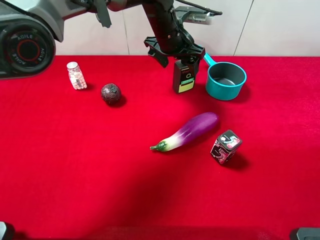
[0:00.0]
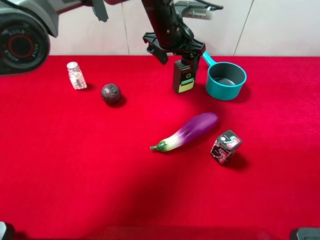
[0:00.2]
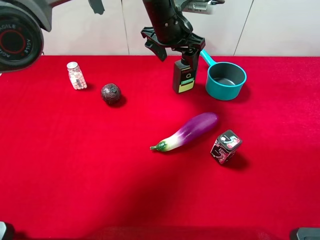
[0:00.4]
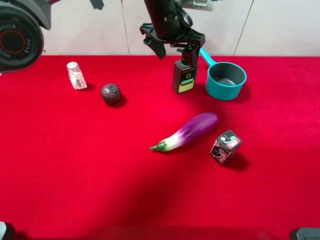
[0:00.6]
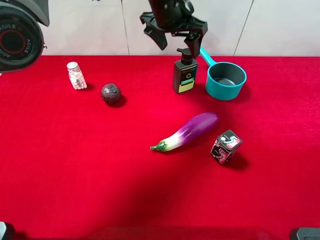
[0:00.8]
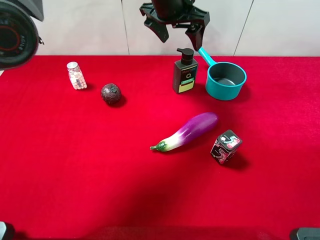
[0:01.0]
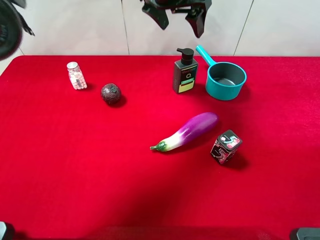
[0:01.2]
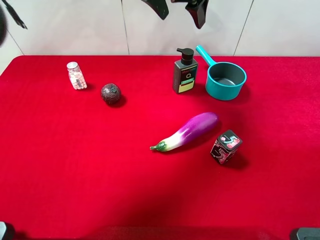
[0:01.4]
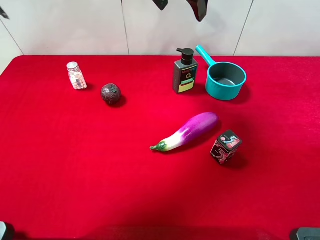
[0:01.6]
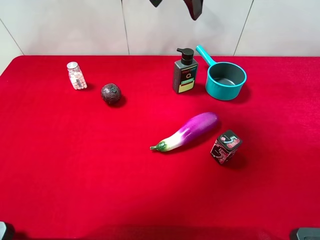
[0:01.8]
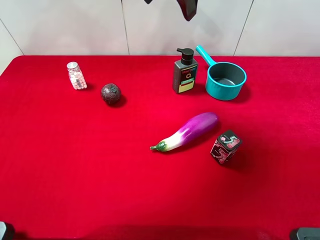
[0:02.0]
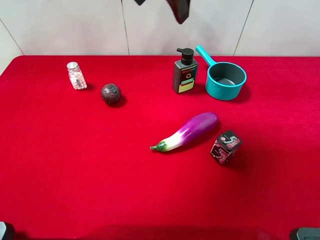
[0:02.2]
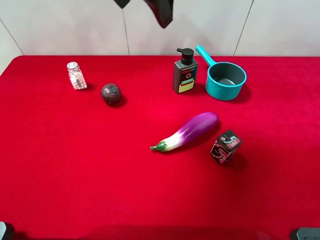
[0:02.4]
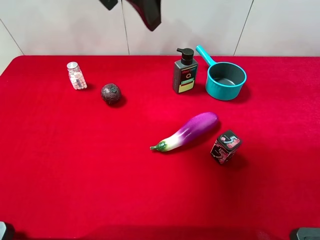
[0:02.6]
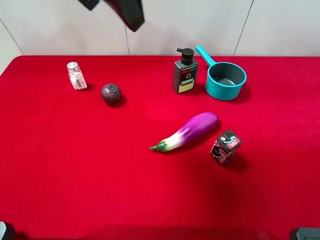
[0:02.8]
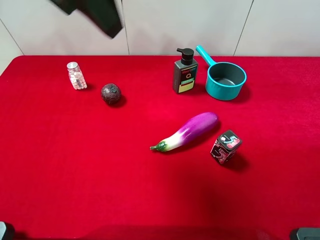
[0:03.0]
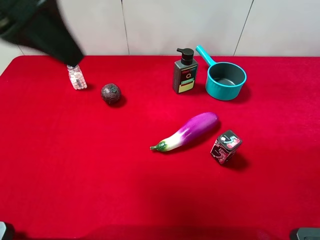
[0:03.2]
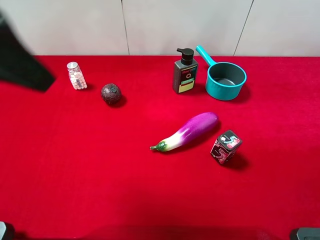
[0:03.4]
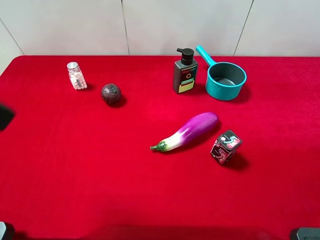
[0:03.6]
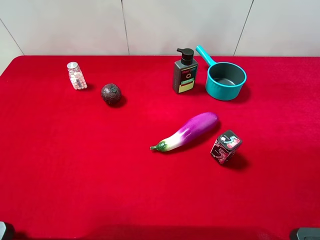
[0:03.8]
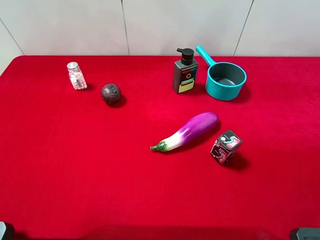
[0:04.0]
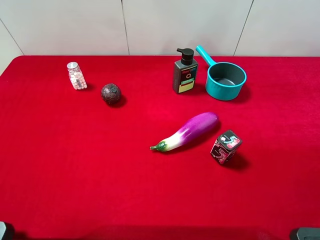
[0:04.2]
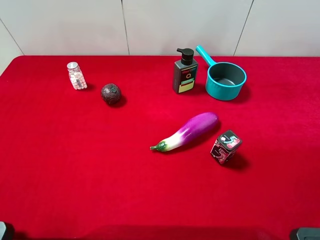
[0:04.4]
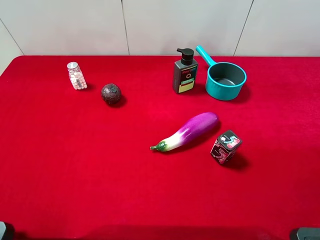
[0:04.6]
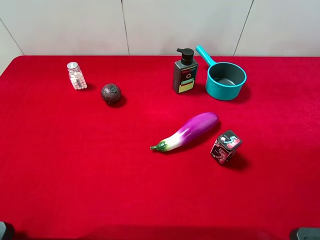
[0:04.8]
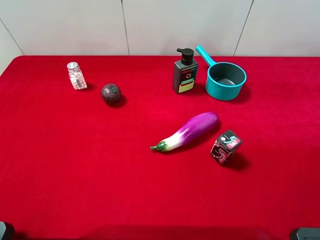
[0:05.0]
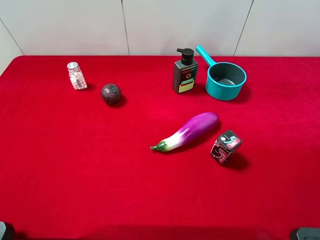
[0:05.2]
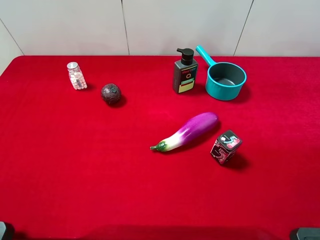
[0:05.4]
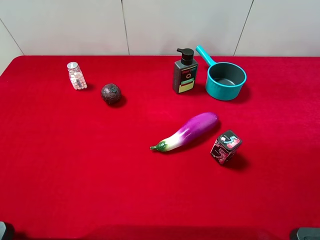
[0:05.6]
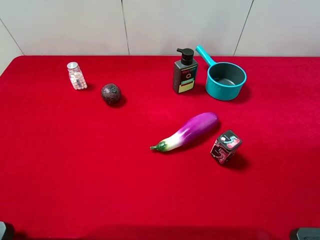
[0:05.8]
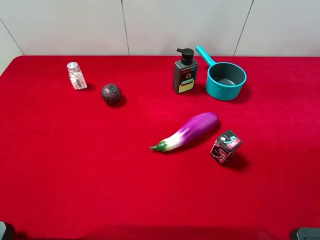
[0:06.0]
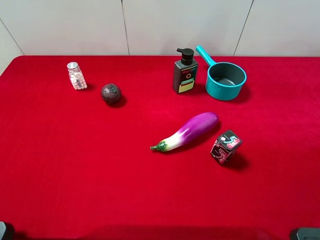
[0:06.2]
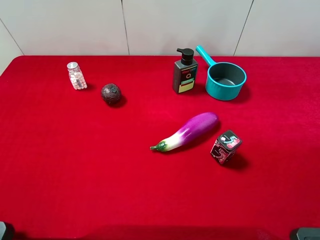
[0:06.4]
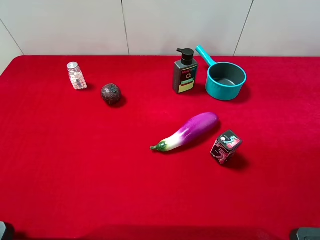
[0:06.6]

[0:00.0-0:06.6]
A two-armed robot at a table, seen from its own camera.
Task of the whole recording: the gripper move the object.
0:00.0 to 0:01.6: The left gripper goes some 15 cm upward.
0:01.6 to 0:03.2: The left gripper shifts approximately 25 cm backward and to the left.
0:03.2 to 0:05.0: The left gripper shifts approximately 25 cm backward, to the left and downward.
0:05.0 to 0:06.6: Both grippers stay put.

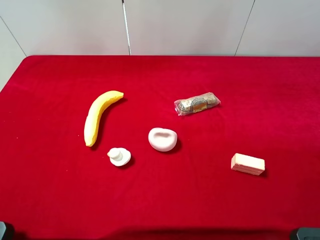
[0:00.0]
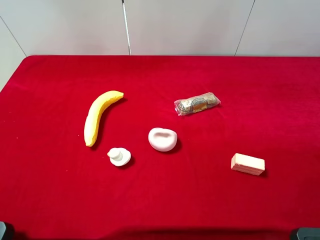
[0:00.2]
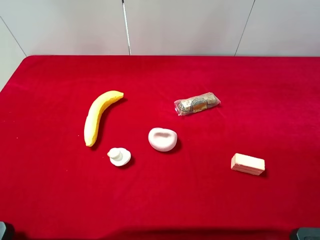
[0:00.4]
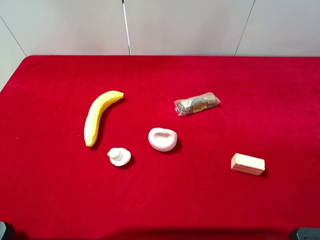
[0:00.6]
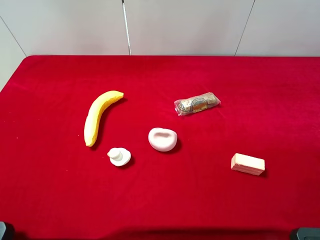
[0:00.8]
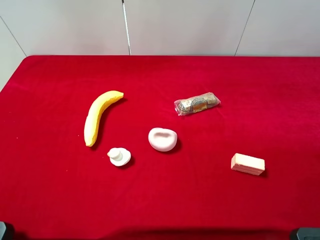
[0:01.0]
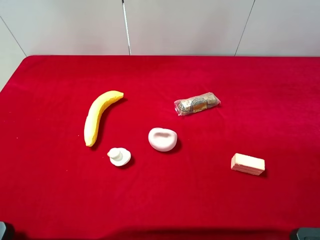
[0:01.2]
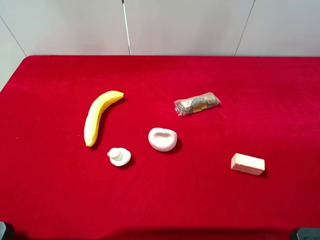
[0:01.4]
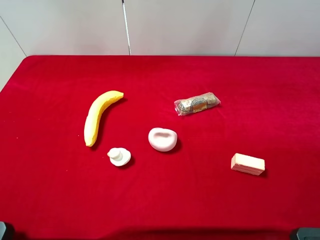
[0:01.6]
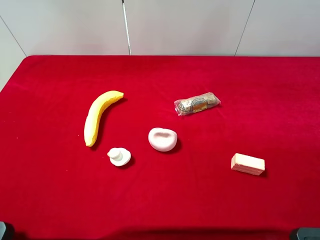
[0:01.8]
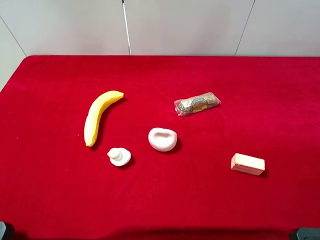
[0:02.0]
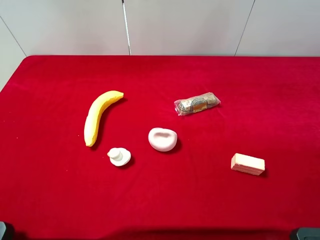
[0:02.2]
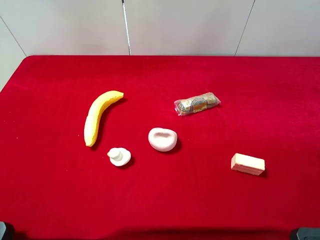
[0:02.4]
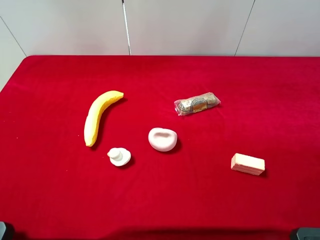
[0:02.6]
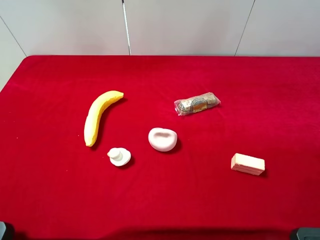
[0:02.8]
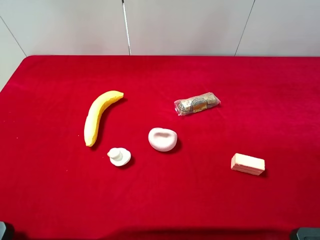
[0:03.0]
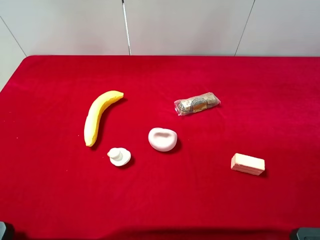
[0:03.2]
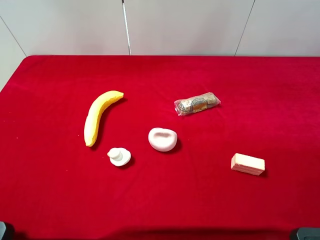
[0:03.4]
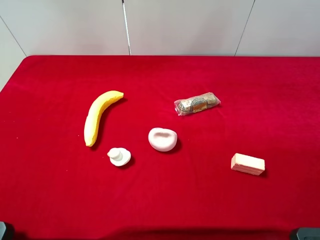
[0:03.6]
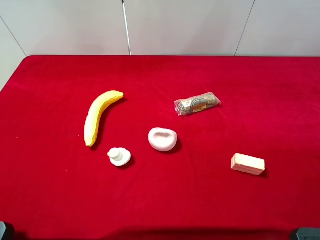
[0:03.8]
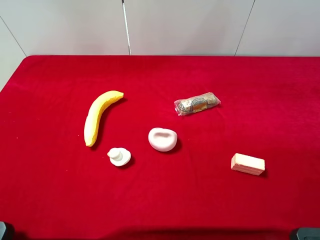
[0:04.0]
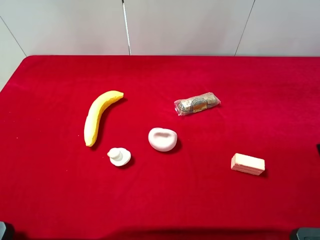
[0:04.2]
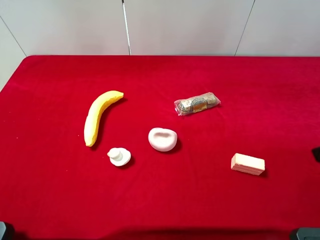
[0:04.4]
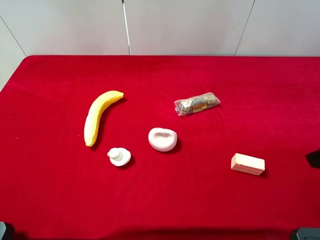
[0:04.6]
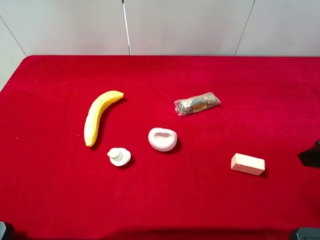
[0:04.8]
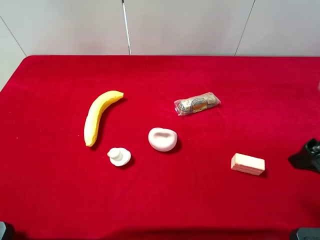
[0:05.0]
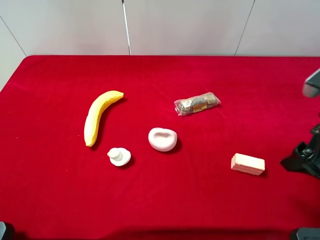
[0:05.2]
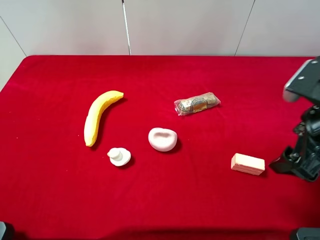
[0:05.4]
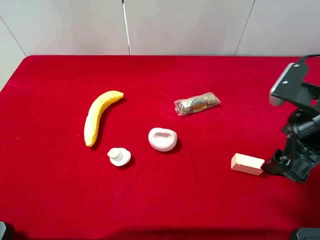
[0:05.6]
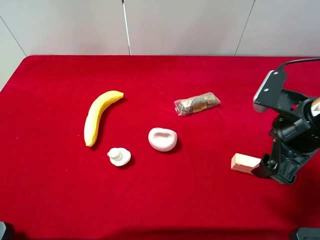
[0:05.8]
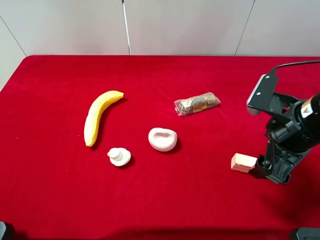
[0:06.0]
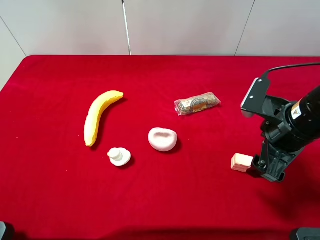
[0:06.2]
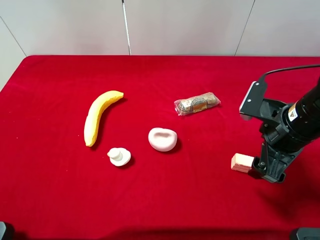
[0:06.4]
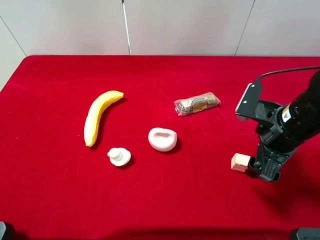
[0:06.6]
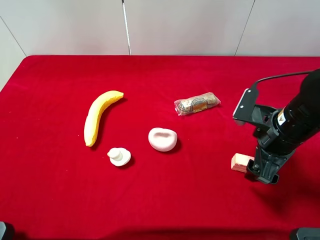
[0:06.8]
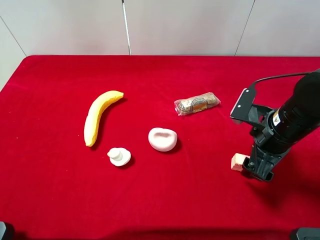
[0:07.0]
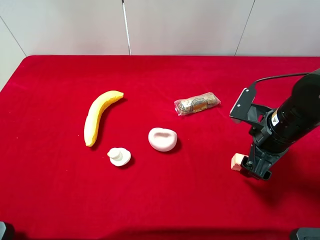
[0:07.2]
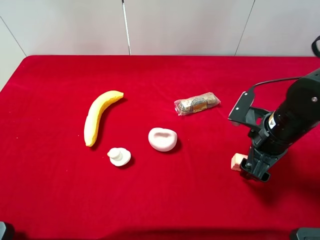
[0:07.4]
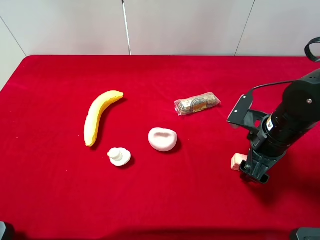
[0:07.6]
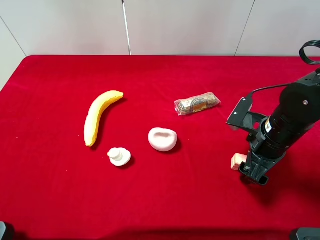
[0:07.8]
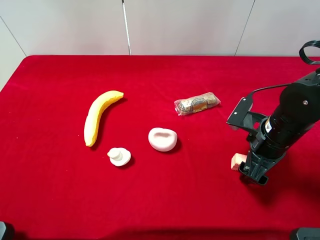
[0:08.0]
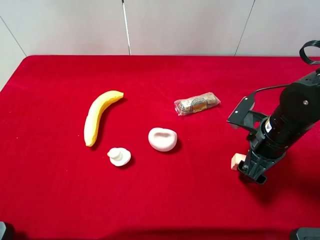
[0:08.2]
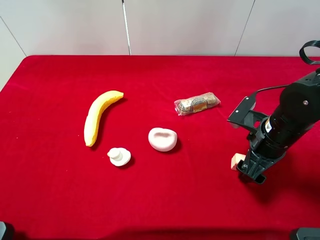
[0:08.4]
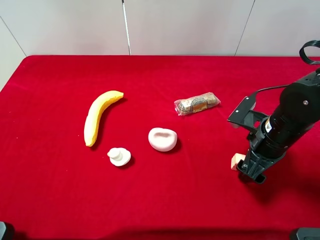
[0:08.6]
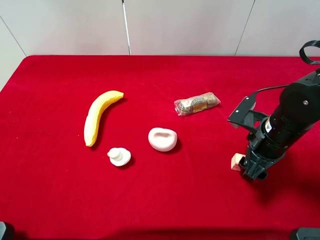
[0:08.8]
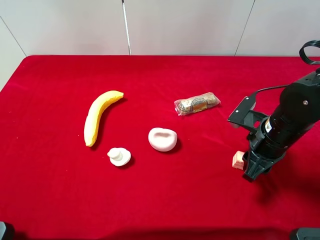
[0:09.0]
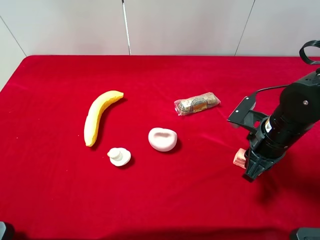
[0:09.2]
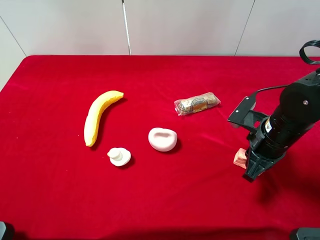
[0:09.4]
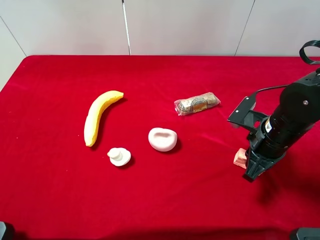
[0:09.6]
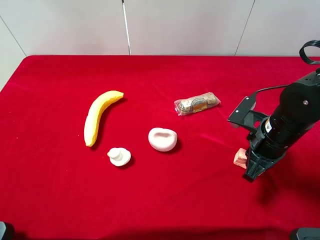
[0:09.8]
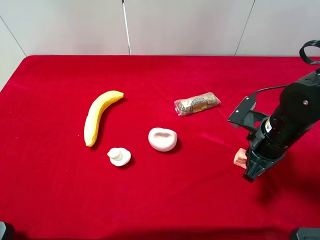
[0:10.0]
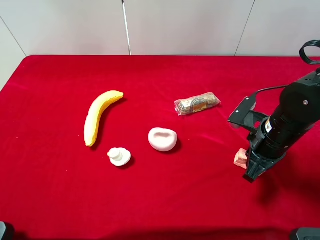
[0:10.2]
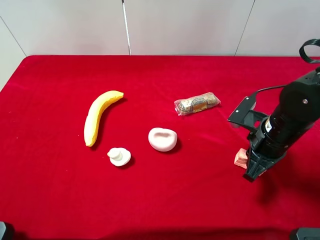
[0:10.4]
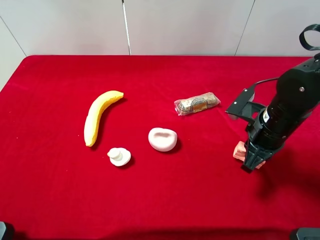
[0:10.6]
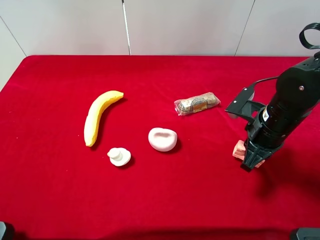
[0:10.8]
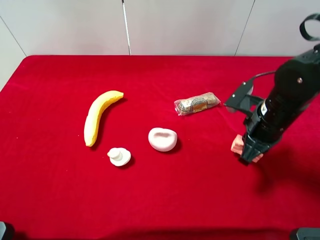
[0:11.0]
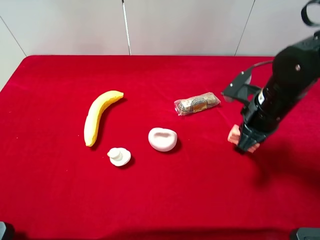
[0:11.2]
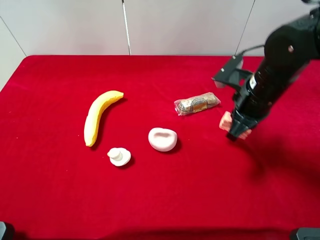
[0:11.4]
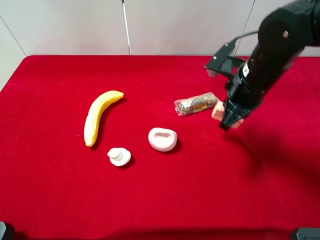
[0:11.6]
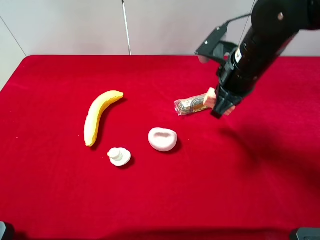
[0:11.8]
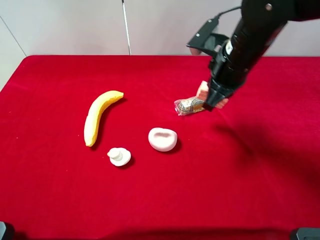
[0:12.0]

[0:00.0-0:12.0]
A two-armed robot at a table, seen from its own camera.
Task of the whole recording: the gripper move the object.
Step, 0:00.0 to 0:09.4: Grasp the pink cake with the right gripper.
0:00.0 to 0:03.0: Both grippers stay about where they are.
0:04.4 to 0:06.0: The right gripper moves to the left, downward and forward, roughly 15 cm.
0:06.0 to 0:07.6: The right gripper goes roughly 5 cm downward.
0:07.6 to 0:09.0: The right gripper closes up.
0:09.0 to 0:10.4: Both grippers stay about where they are.
0:10.4 to 0:12.0: The right gripper goes some 15 cm upward, to the left and forward.

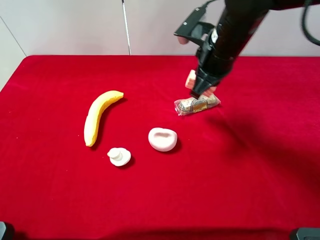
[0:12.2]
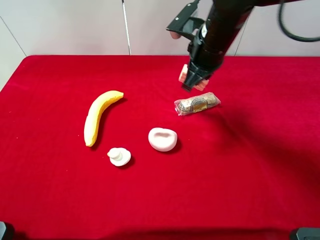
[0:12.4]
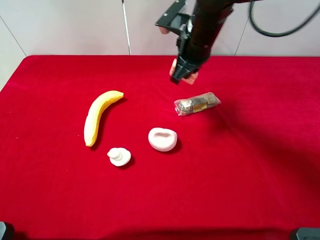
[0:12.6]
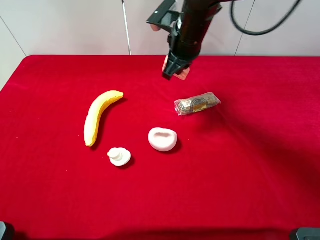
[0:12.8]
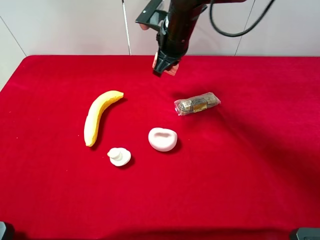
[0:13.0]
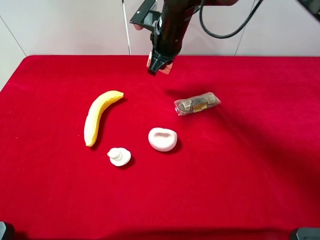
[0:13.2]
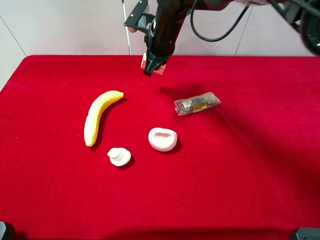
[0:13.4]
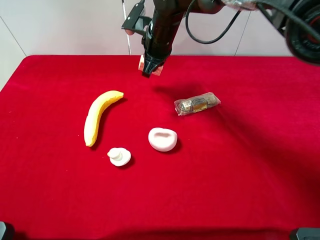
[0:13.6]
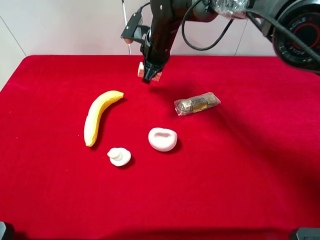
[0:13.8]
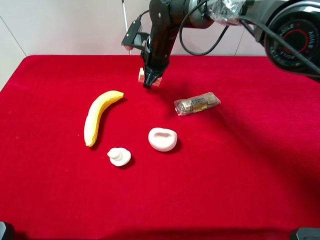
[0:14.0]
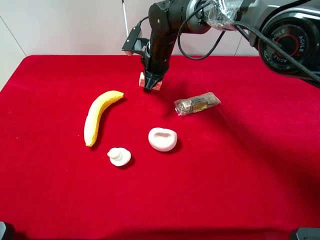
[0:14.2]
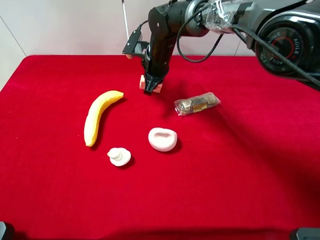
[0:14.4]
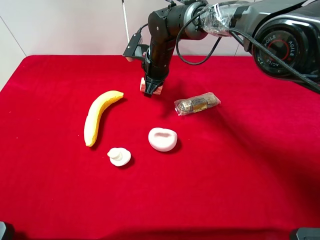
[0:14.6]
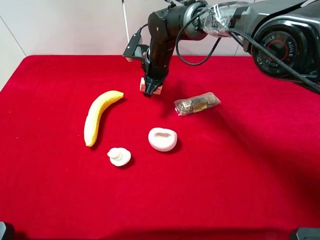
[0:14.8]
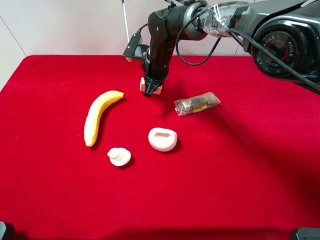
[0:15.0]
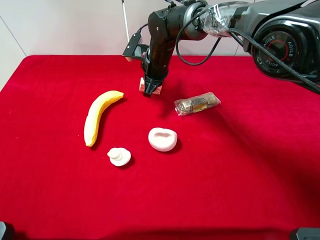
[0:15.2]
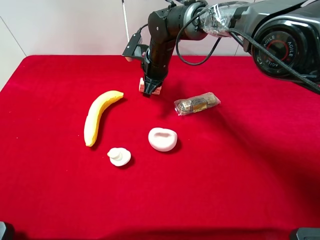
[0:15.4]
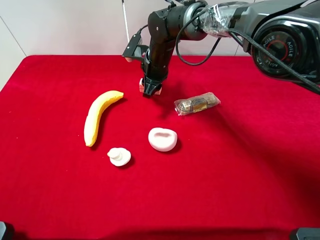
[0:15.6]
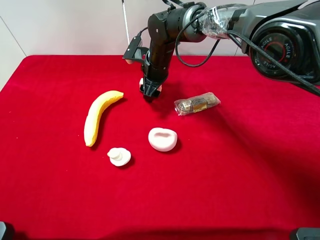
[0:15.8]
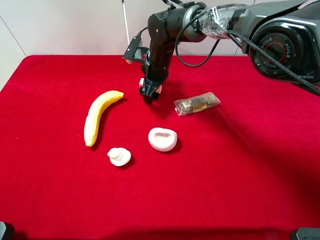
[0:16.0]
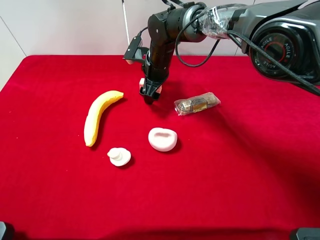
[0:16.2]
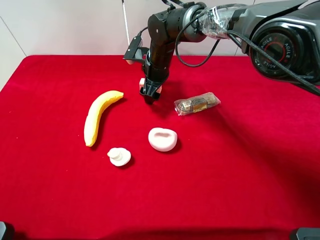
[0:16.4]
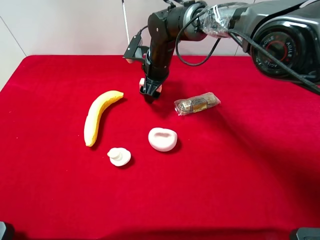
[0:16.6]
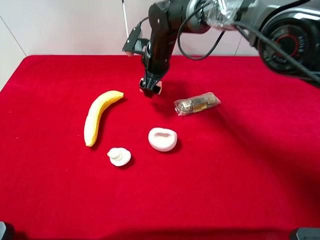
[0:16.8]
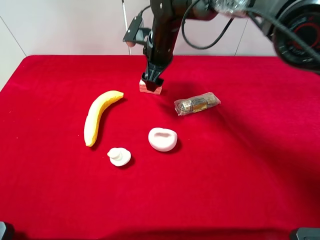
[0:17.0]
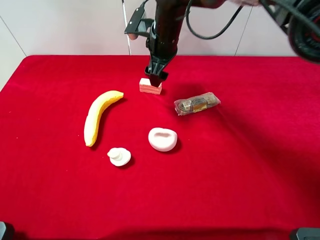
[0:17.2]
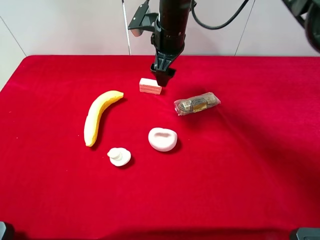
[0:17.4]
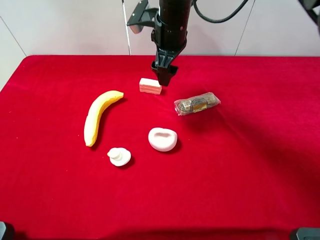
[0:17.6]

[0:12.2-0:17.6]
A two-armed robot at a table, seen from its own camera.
Task of the whole recording: the gripper move the object.
0:12.2 to 0:13.6: The right gripper moves to the left and forward, approximately 15 cm.
0:13.6 to 0:15.0: The right gripper goes about 5 cm downward.
0:15.0 to 0:16.2: The right gripper opens up.
0:16.2 to 0:17.6: The right gripper heads upward, covering roughly 10 cm.
